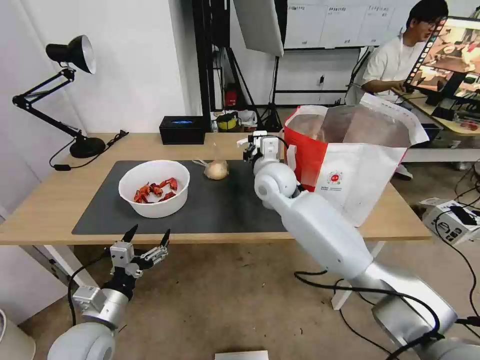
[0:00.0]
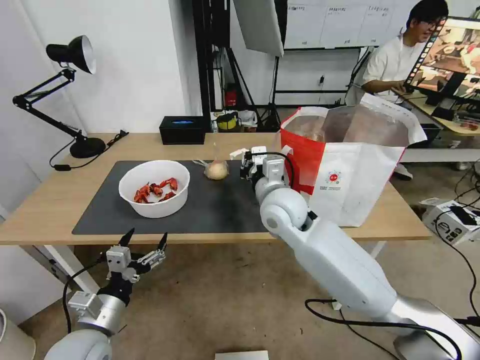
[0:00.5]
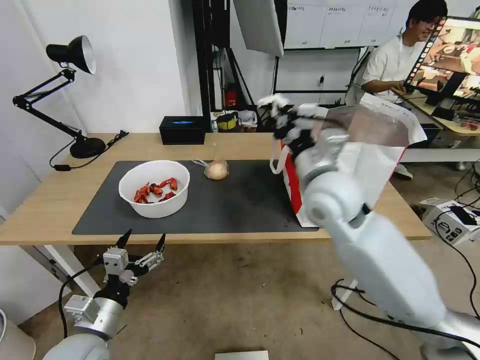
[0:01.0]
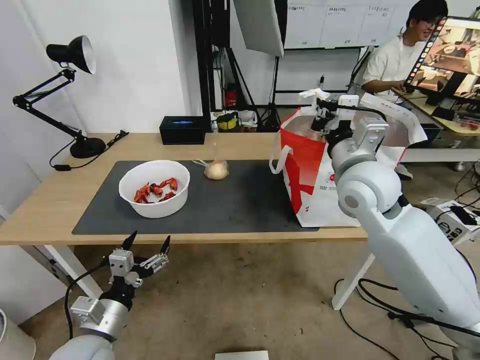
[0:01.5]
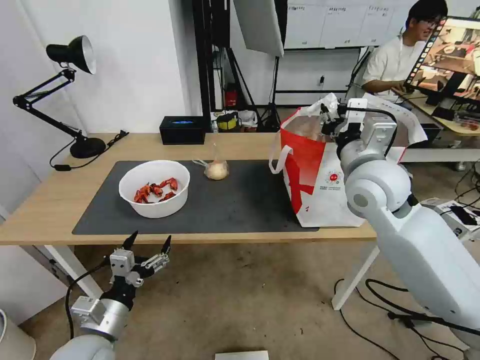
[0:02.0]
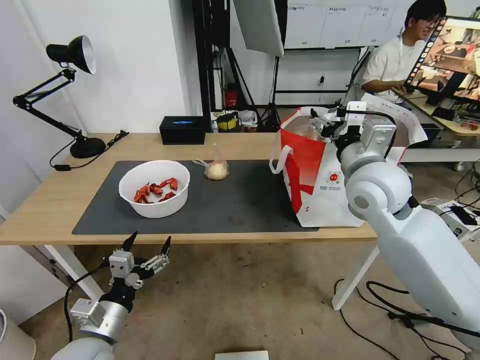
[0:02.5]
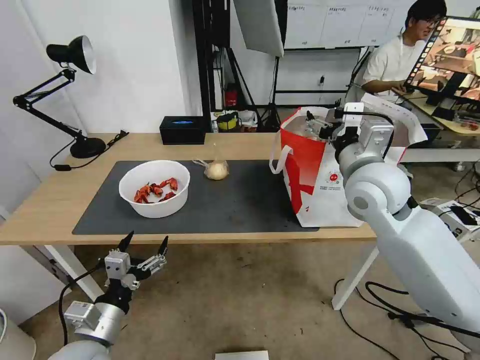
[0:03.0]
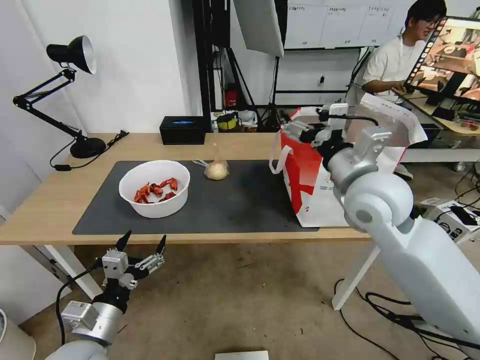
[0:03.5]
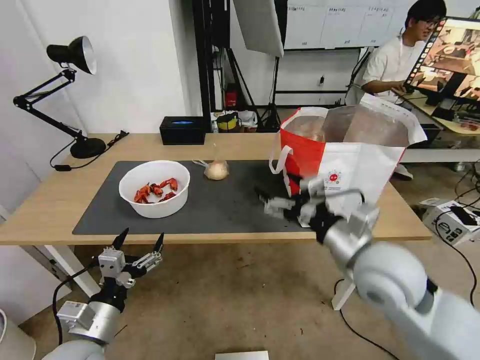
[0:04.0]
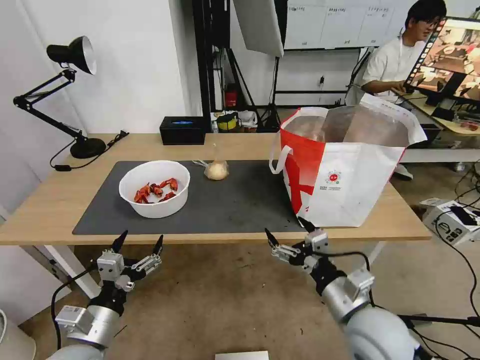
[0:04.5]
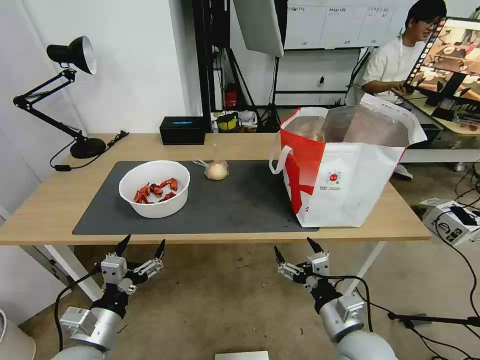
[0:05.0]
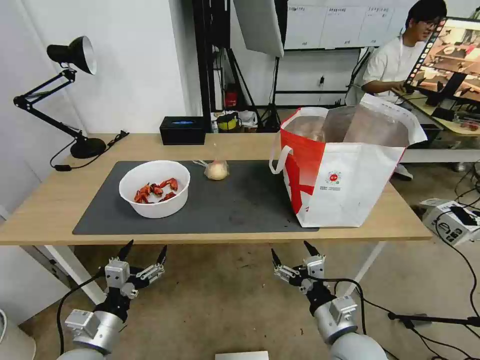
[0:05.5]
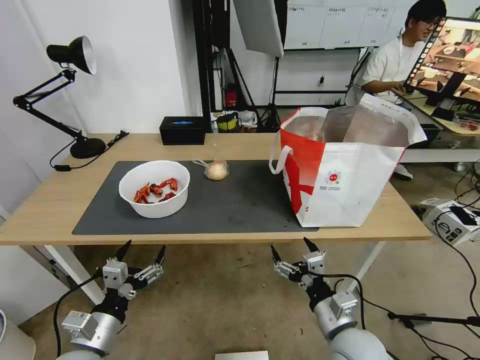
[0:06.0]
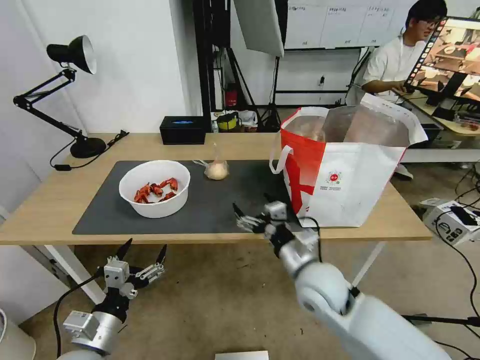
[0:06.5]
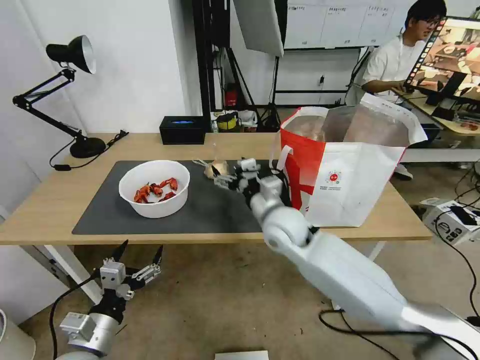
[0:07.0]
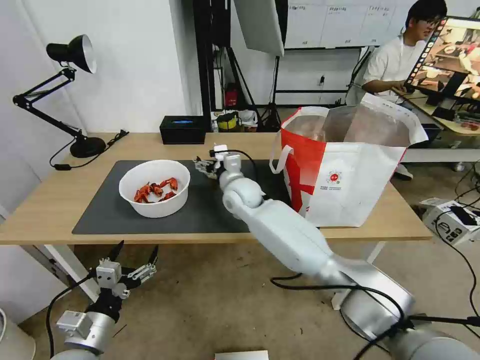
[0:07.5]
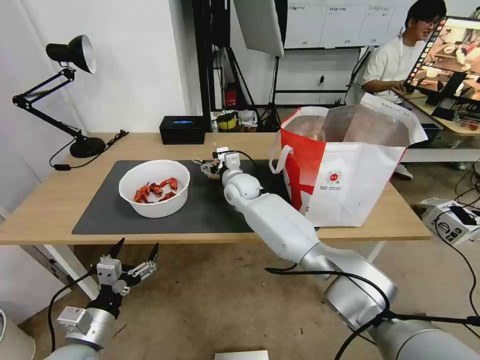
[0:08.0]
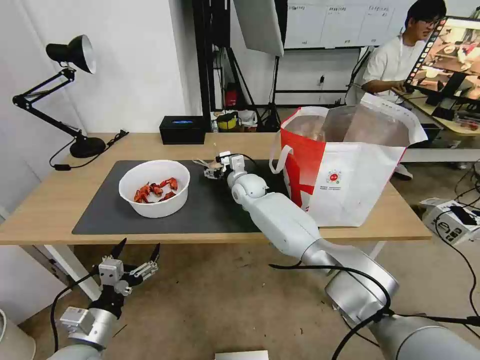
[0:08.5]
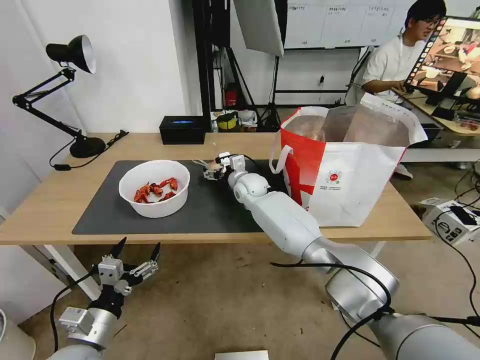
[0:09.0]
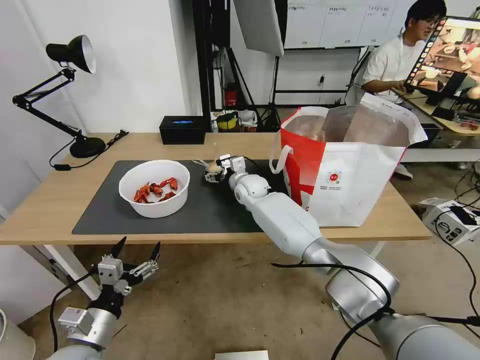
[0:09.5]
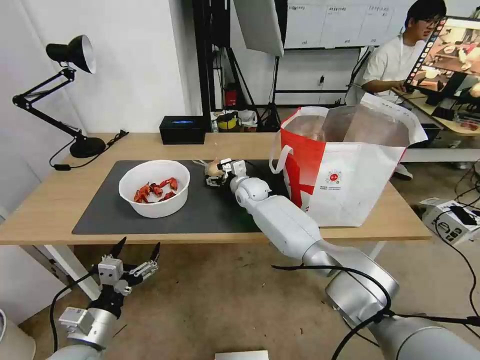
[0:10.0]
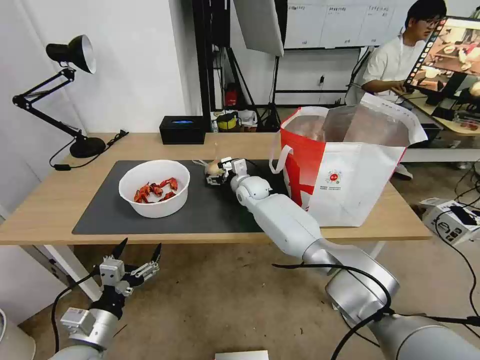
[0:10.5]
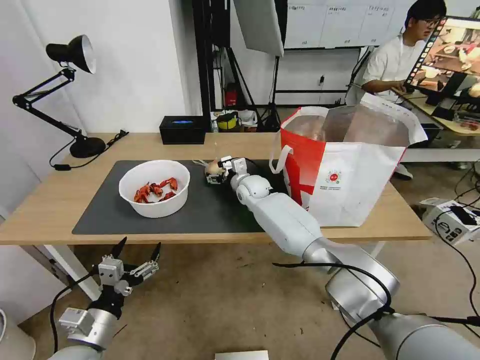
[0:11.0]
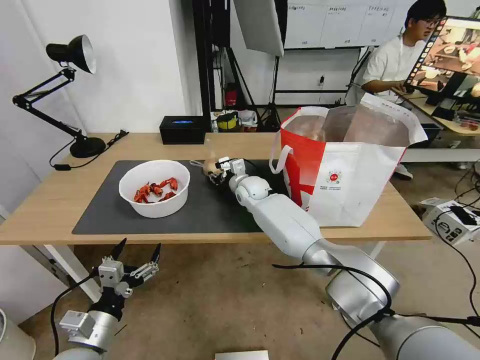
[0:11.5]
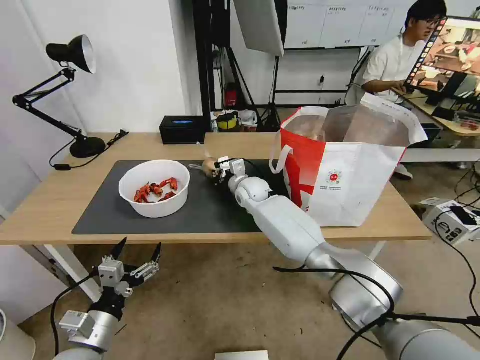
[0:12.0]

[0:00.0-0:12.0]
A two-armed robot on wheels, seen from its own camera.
Task of the whole recording: Pick up the trash from the table and place it into the takeout bag.
0:00.0 to 0:02.0: The right gripper heads to the right, backward and upward, covering about 20 cm, and opens its fingers.
0:02.0 to 0:04.0: The right gripper heads backward and downward, covering some 15 cm, and opens up.
0:04.0 to 0:06.0: The right gripper shifts some 20 cm downward and backward.
0:06.0 to 0:08.0: The right gripper goes approximately 40 cm forward and to the left.
0:08.0 to 0:10.0: The right gripper moves some 5 cm.
0:10.0 to 0:12.0: The right gripper closes up.

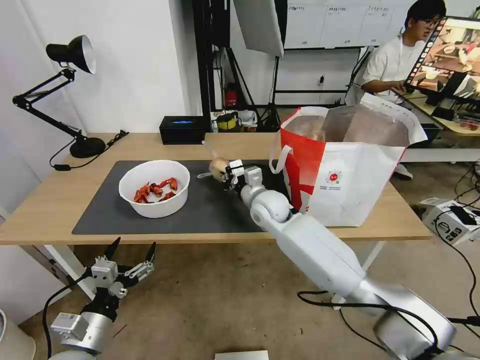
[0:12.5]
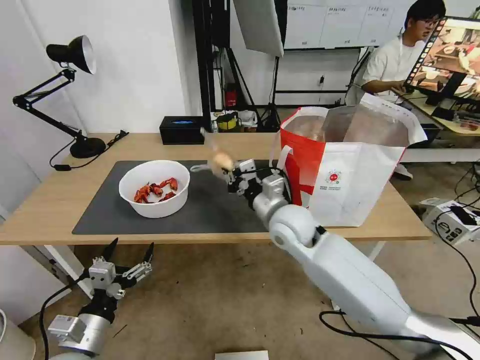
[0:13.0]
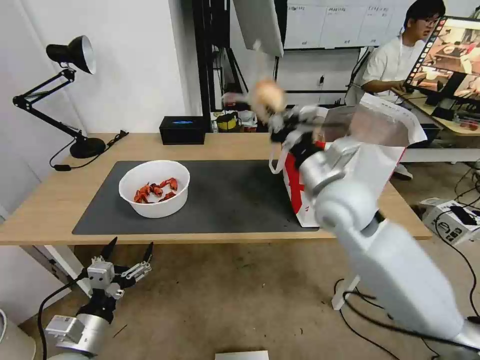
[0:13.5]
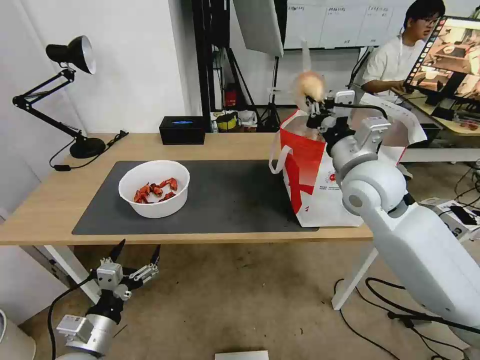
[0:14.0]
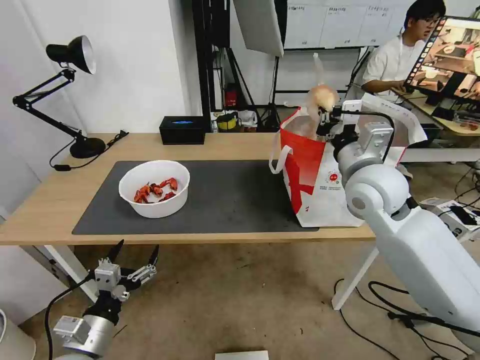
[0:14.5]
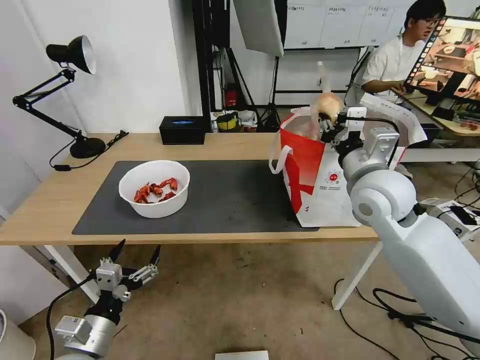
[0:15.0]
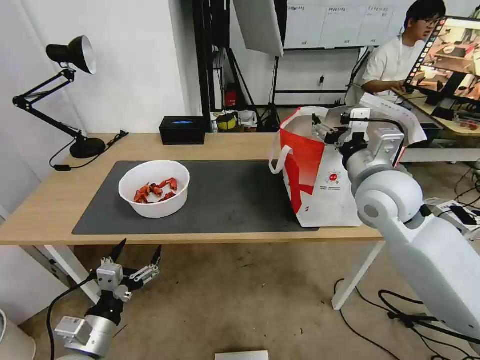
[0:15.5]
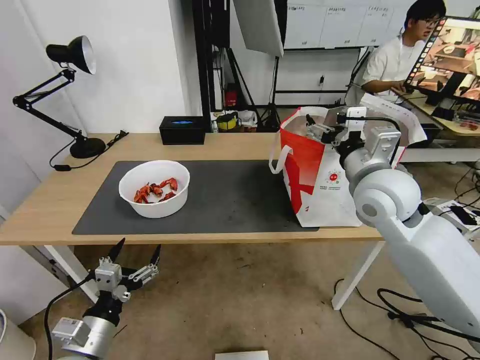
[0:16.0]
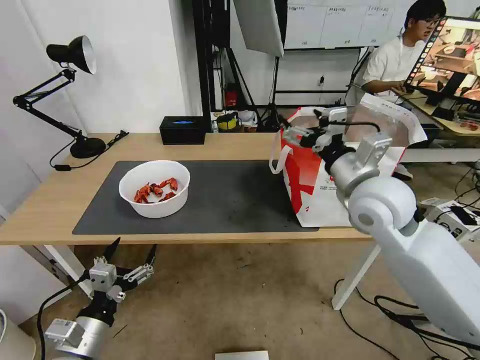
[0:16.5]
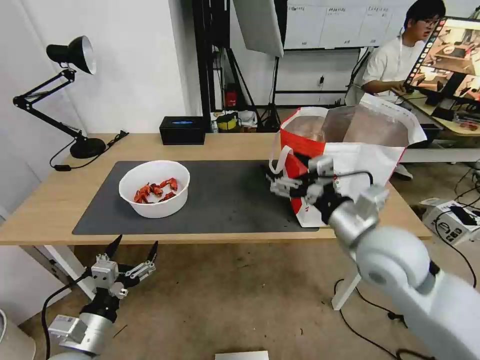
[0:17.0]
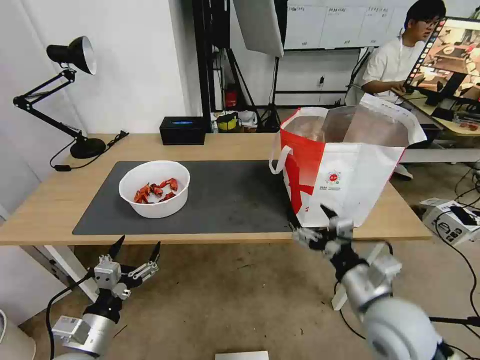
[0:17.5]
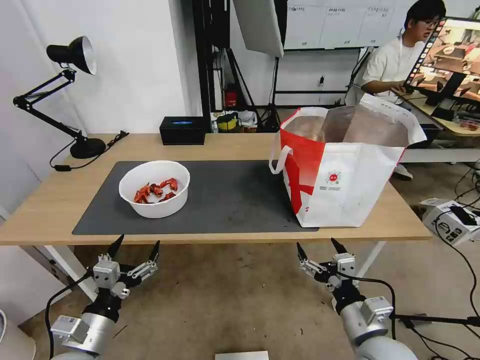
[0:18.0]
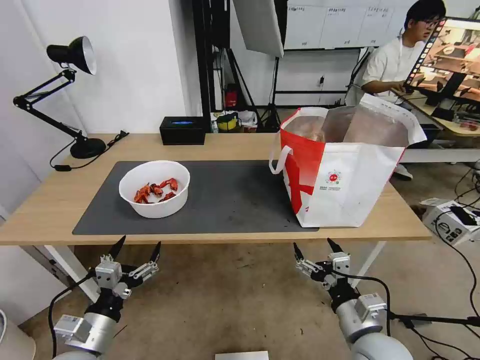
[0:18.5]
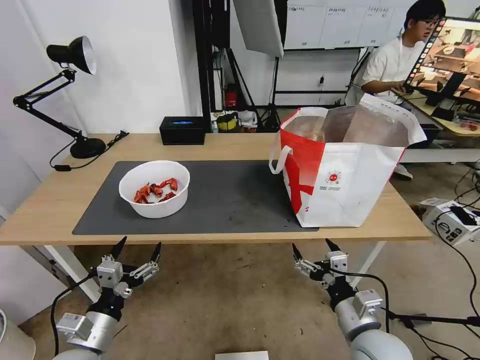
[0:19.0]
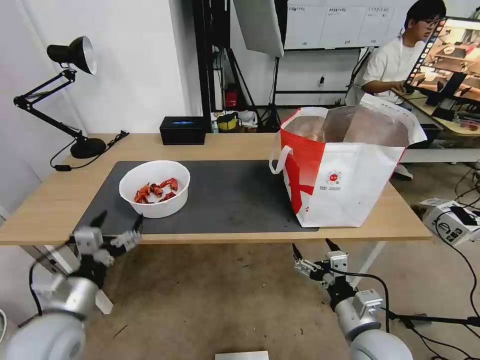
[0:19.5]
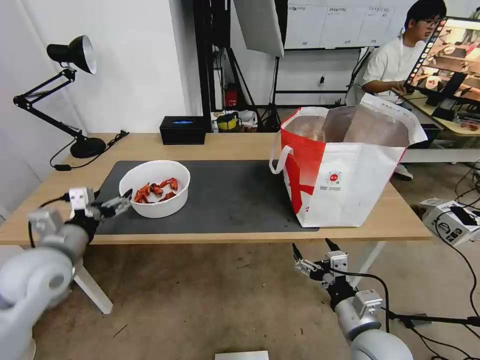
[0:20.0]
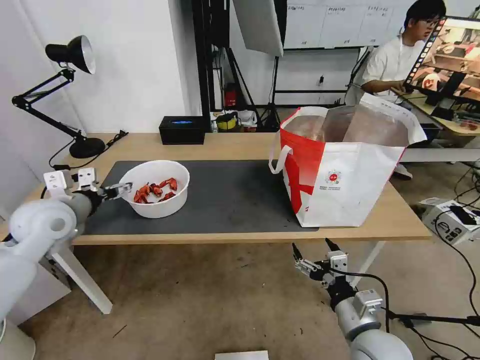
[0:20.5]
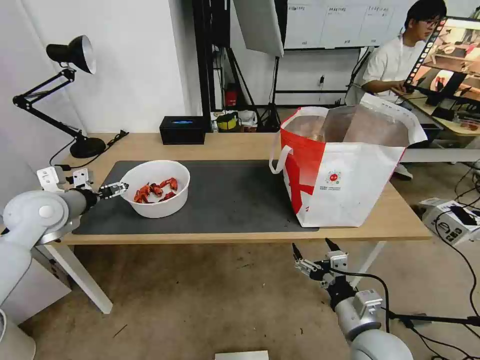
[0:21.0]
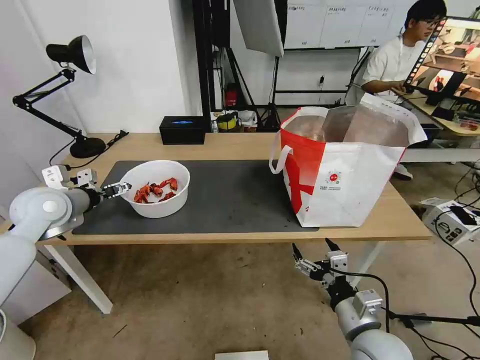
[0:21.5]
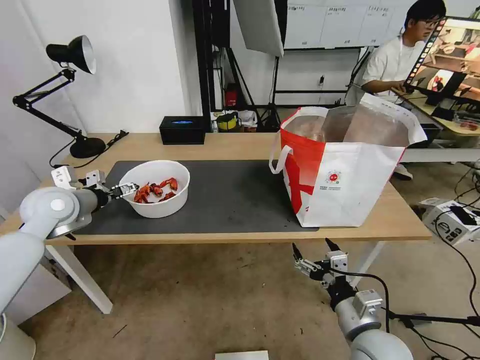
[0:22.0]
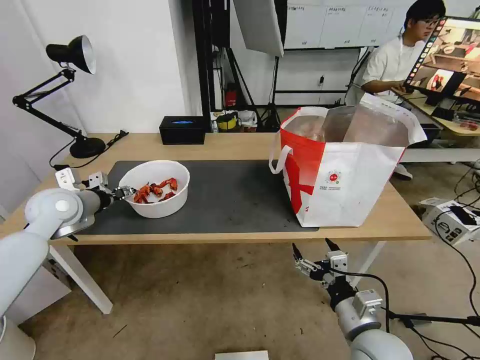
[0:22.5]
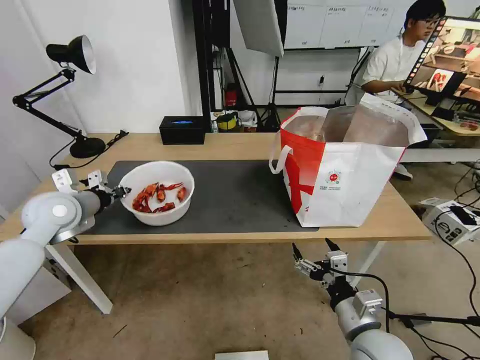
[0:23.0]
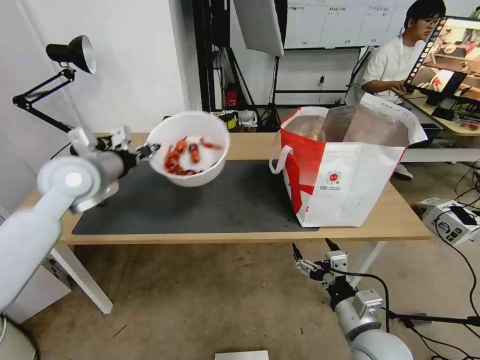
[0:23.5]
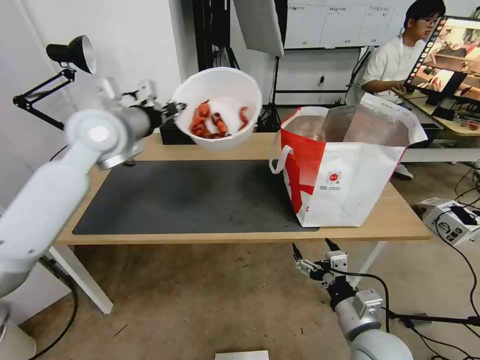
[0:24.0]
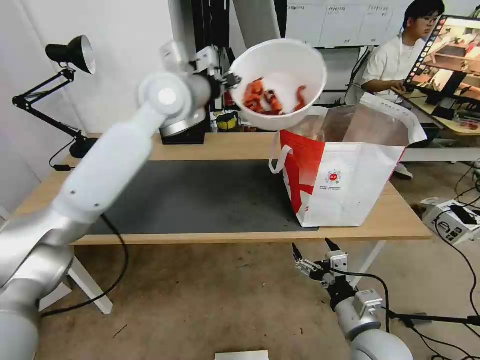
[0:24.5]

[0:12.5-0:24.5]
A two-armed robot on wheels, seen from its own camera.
Task of the whole recording: Pick up the trash from the table and place it into the takeout bag.
0:12.5 to 0:14.5: The right gripper goes about 25 cm to the right, upward and backward.
0:14.5 to 0:16.5: The right gripper opens its fingers.
0:16.5 to 0:18.5: The right gripper moves downward and backward, approximately 30 cm.
0:18.5 to 0:20.5: The left gripper heads forward and upward, covering about 30 cm.
0:20.5 to 0:22.5: The left gripper shifts by some 5 cm, and closes up.
0:22.5 to 0:24.5: The left gripper goes roughly 35 cm to the right and upward, and closes.

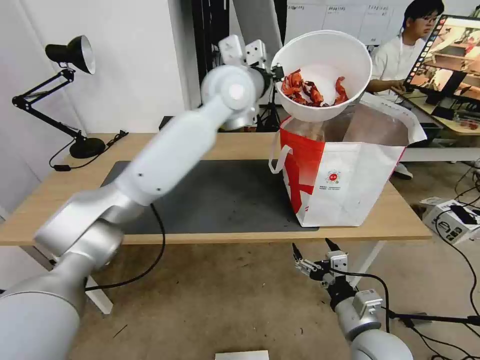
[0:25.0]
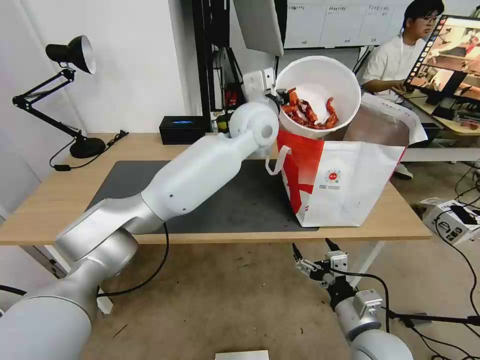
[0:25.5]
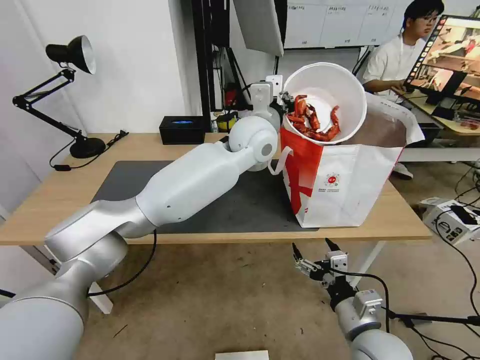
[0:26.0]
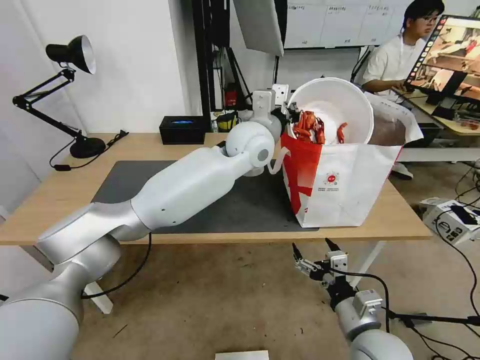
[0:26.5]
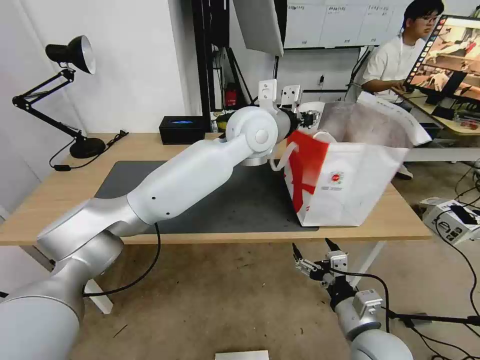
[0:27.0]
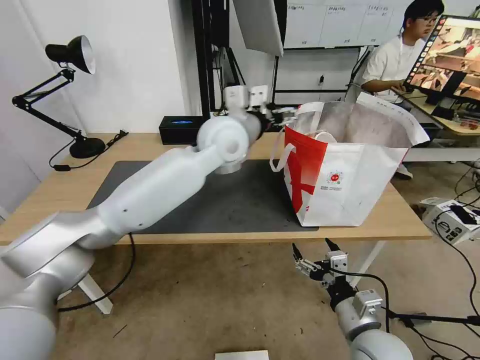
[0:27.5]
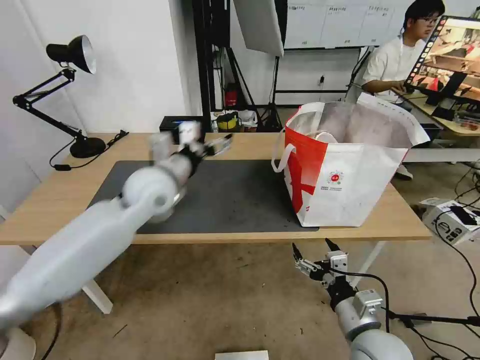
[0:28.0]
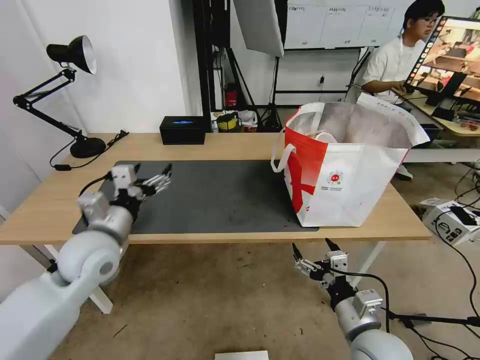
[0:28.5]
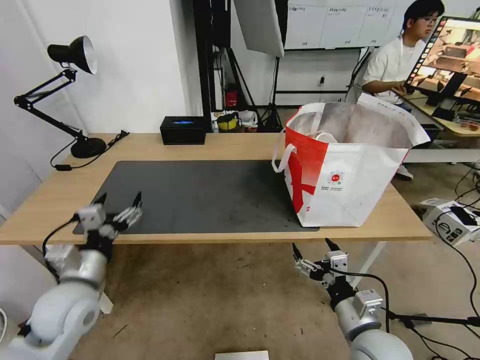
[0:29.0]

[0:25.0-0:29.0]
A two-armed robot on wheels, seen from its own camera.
Task of the whole recording: Pick up the trash from the table and place it into the takeout bag.
0:25.0 to 0:27.0: The left gripper travels downward by some 5 cm, and opens up.
0:27.0 to 0:29.0: The left gripper shifts some 50 cm to the left, backward and downward, and opens.
